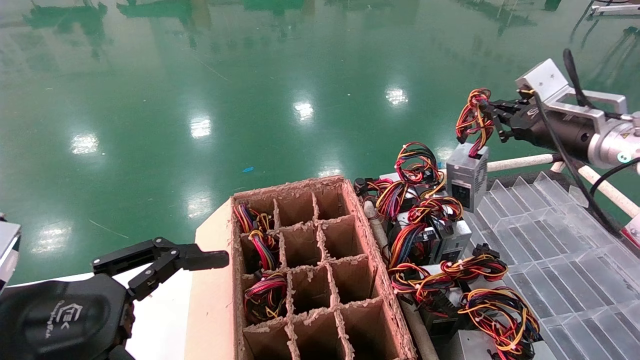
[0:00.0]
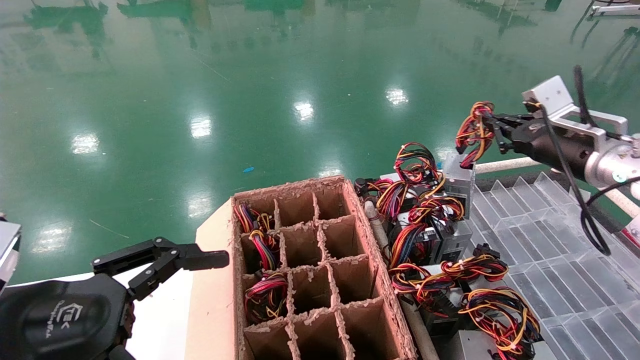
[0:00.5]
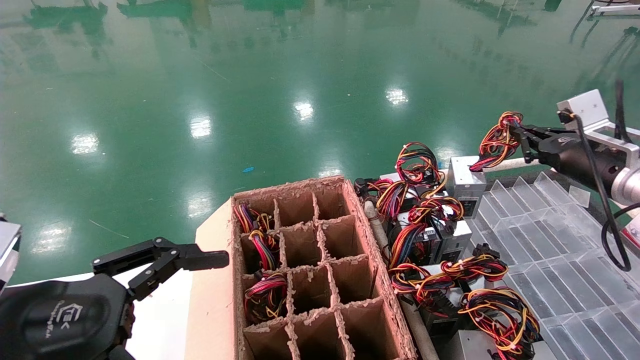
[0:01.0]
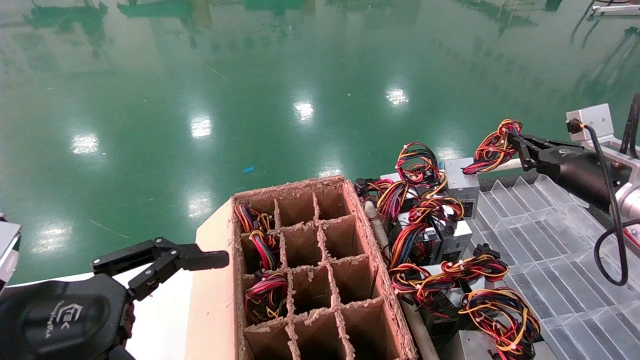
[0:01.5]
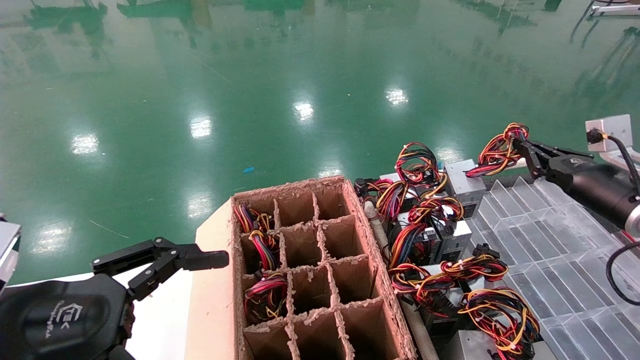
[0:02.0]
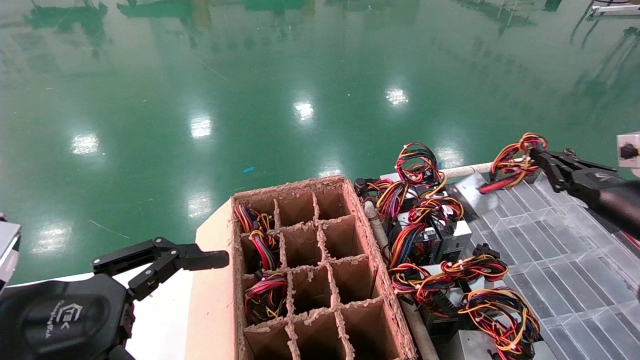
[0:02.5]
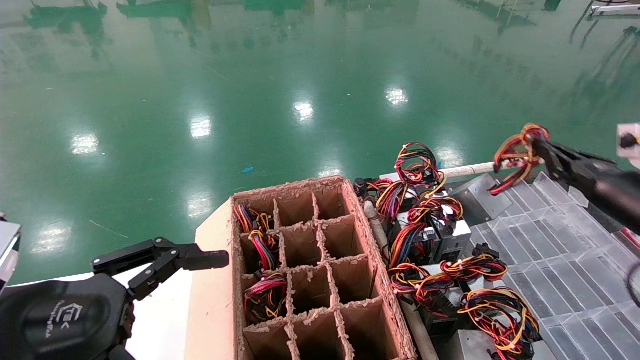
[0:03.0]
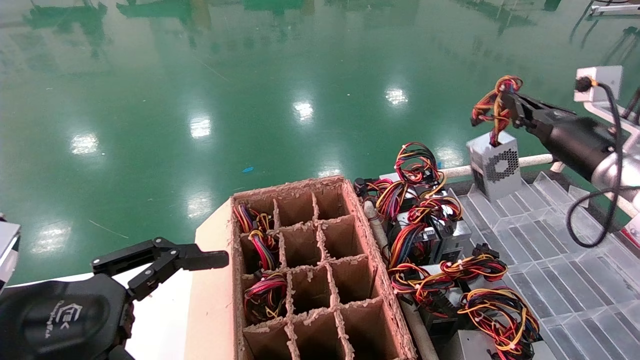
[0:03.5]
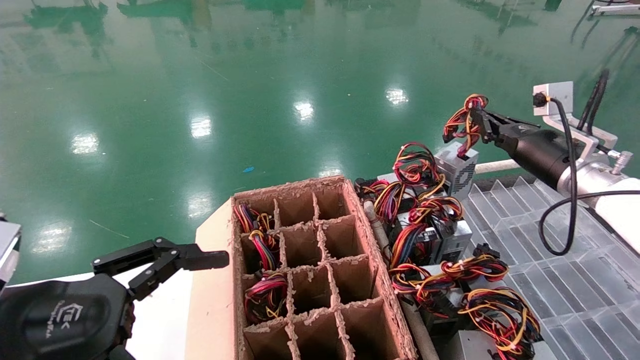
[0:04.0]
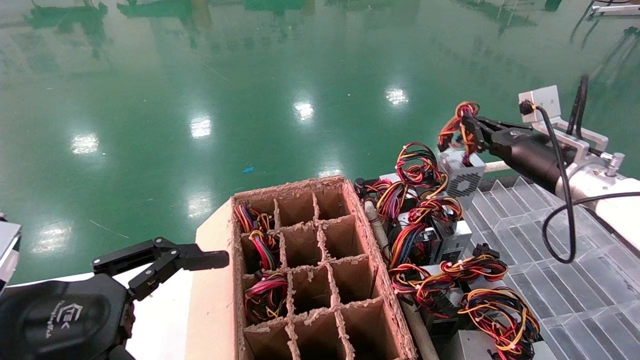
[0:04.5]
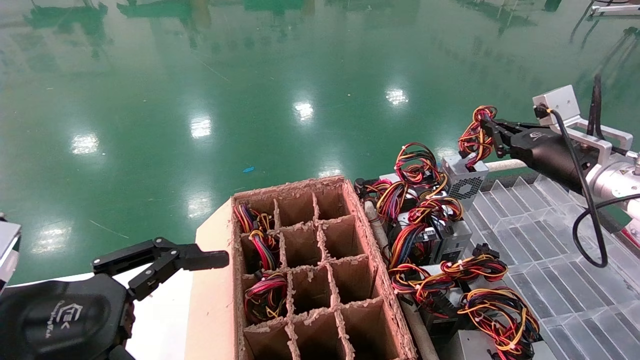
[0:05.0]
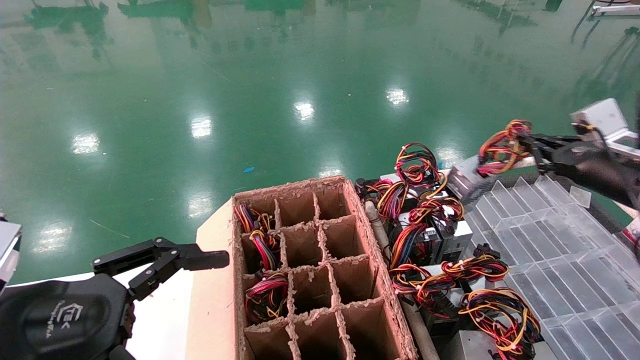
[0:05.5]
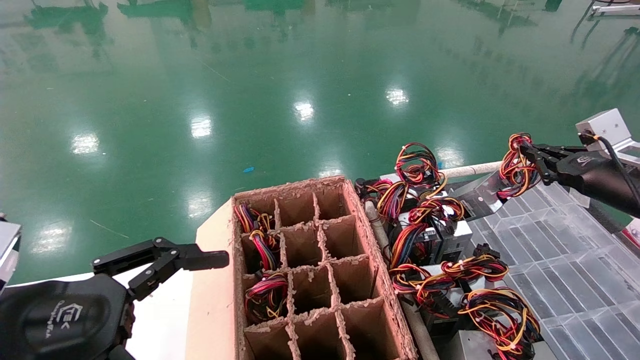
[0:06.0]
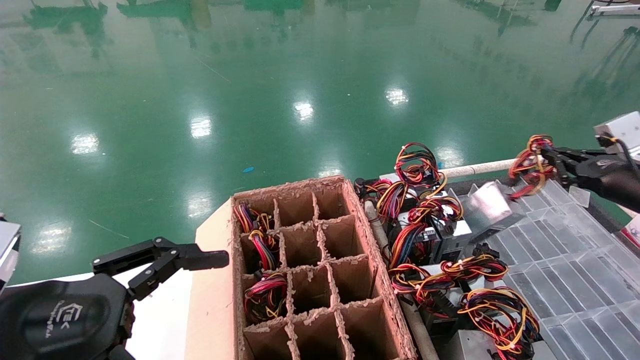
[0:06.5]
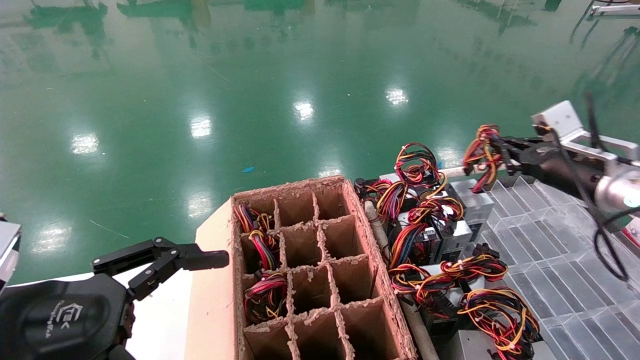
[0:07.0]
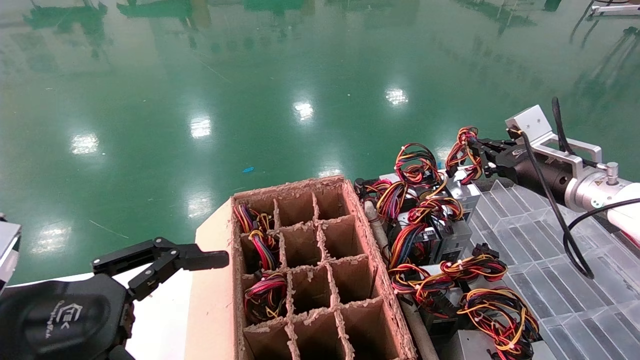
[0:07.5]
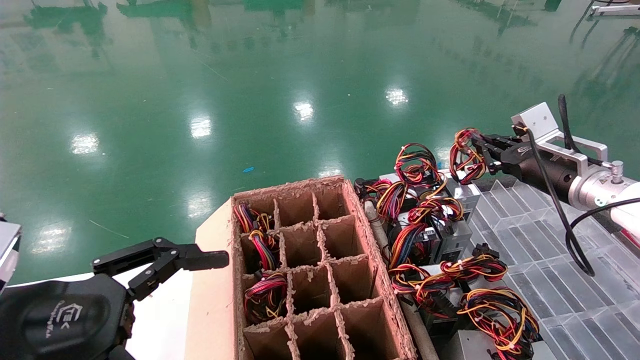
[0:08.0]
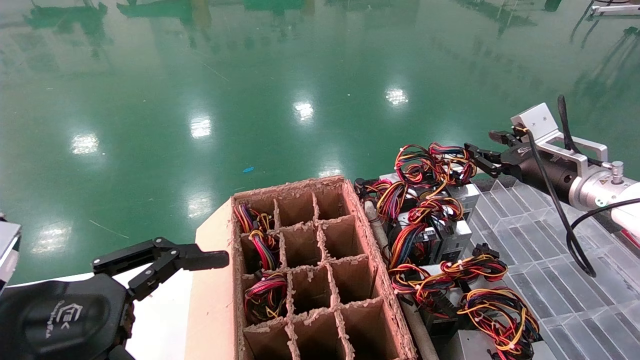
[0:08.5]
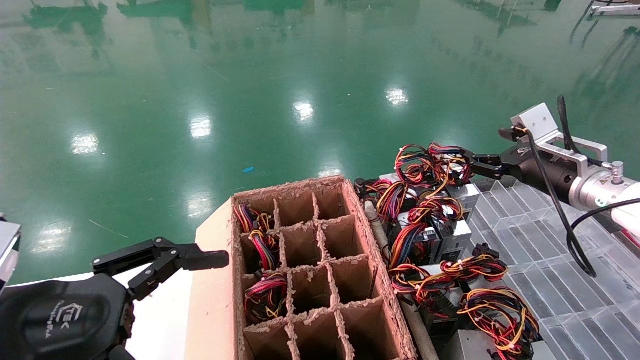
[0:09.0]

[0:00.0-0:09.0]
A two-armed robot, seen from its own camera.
Step, 0:00.0 to 0:08.0: Place the power supply on the operating table.
0:00.0 to 0:02.0: The right gripper moves downward and to the right, roughly 10 cm.
0:02.0 to 0:04.5: The right gripper shifts approximately 5 cm to the left.
0:07.0 to 0:09.0: The right gripper opens up.

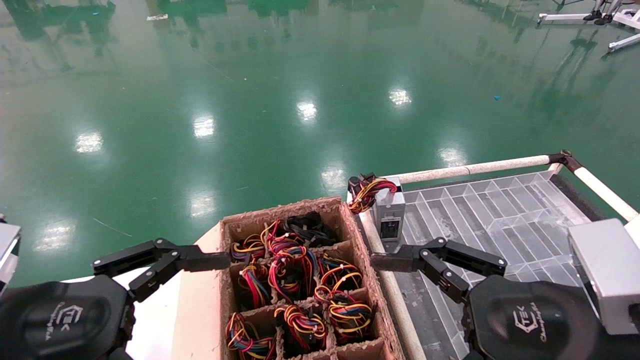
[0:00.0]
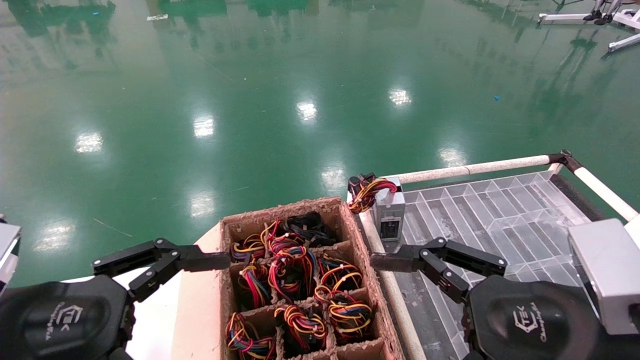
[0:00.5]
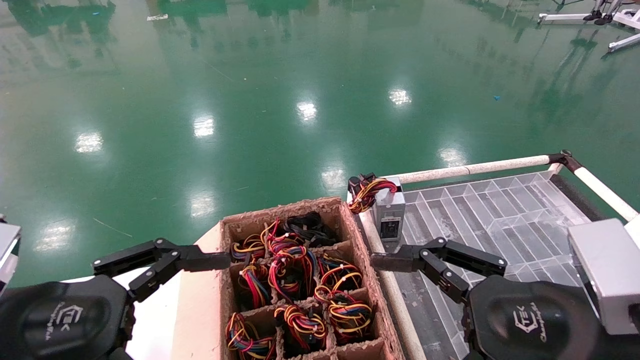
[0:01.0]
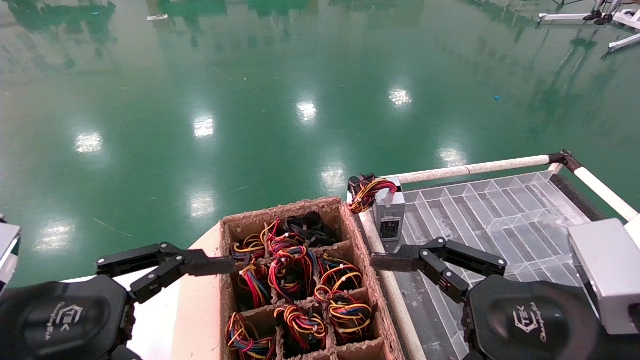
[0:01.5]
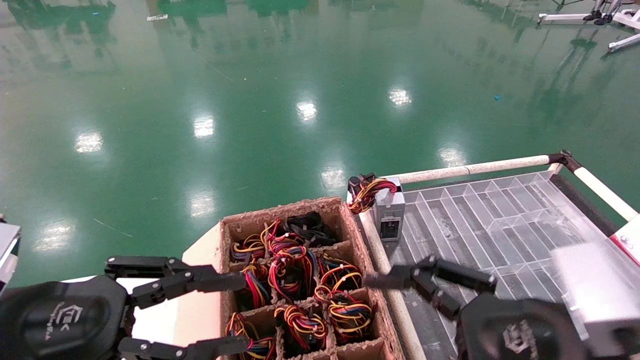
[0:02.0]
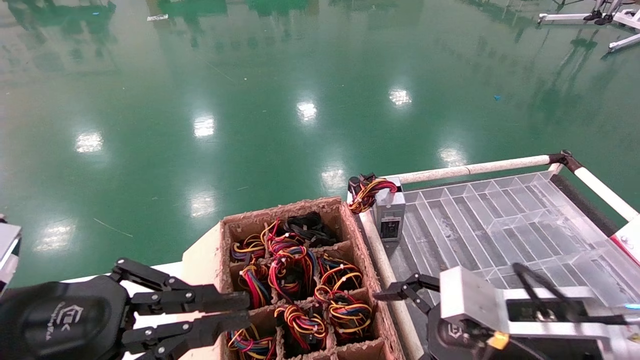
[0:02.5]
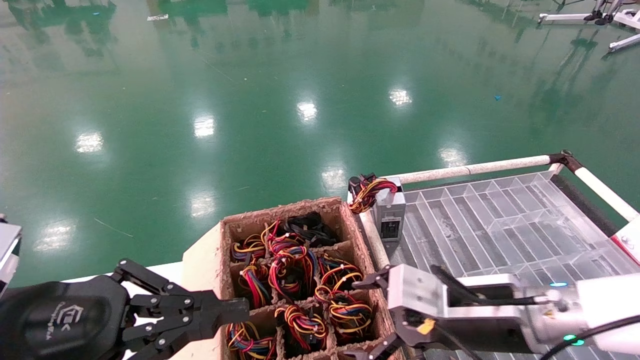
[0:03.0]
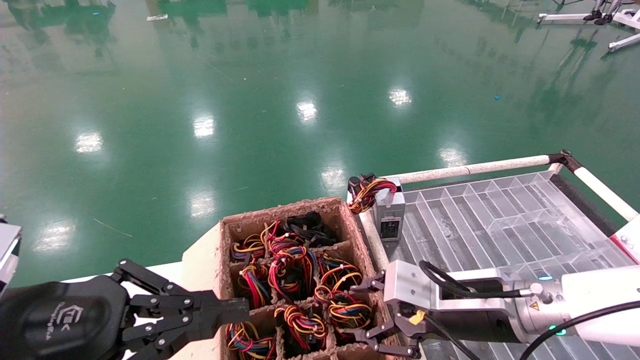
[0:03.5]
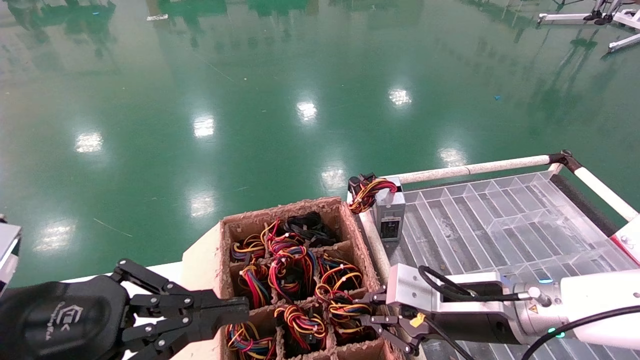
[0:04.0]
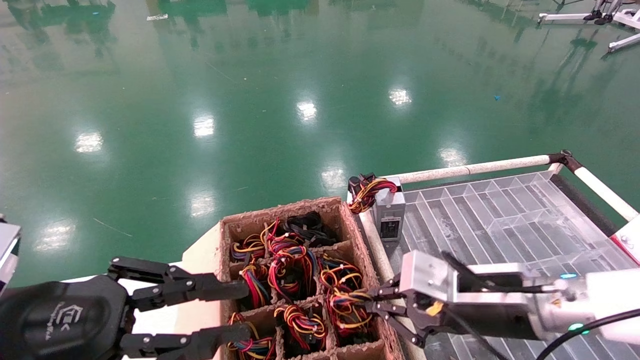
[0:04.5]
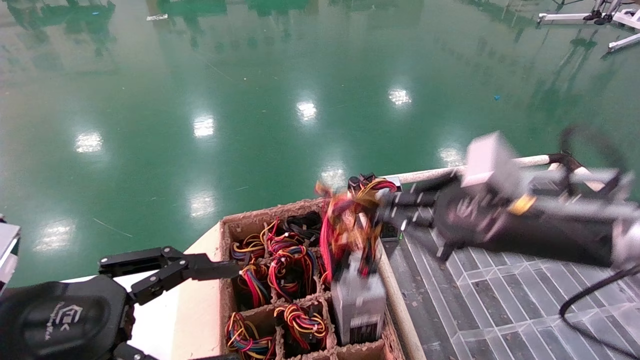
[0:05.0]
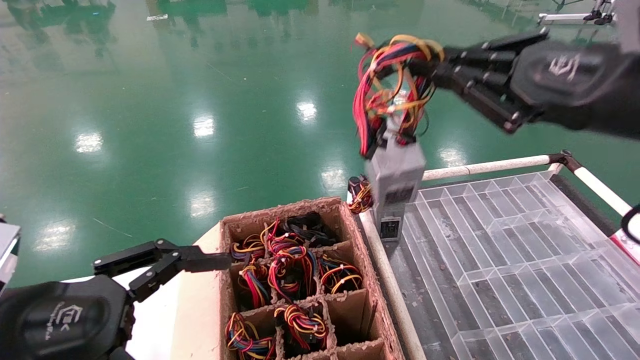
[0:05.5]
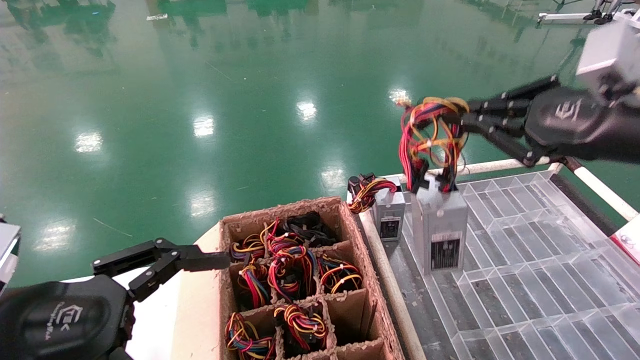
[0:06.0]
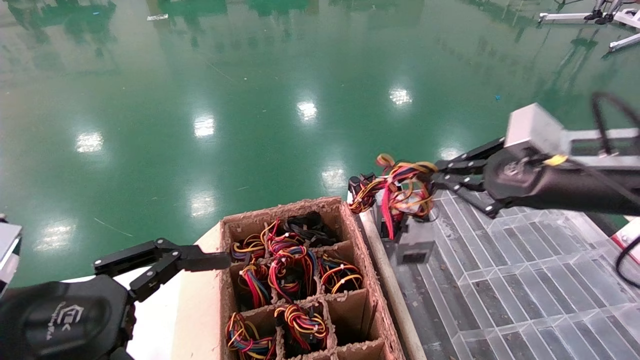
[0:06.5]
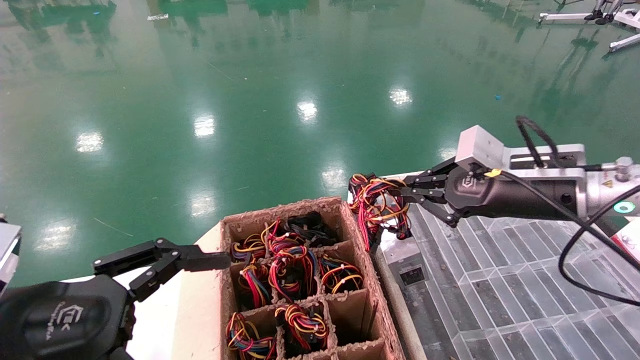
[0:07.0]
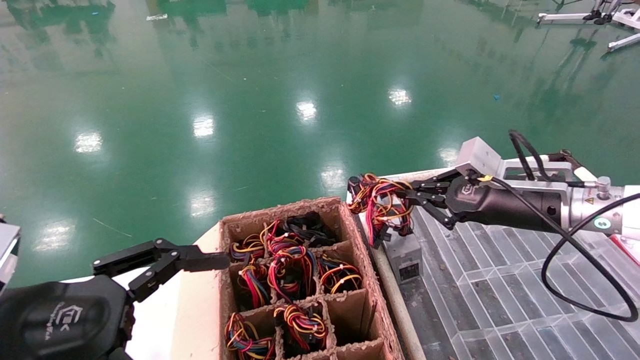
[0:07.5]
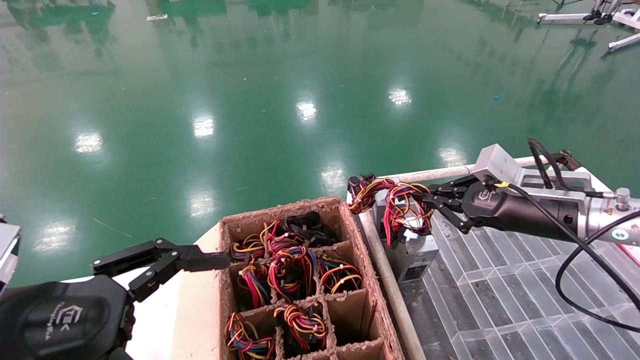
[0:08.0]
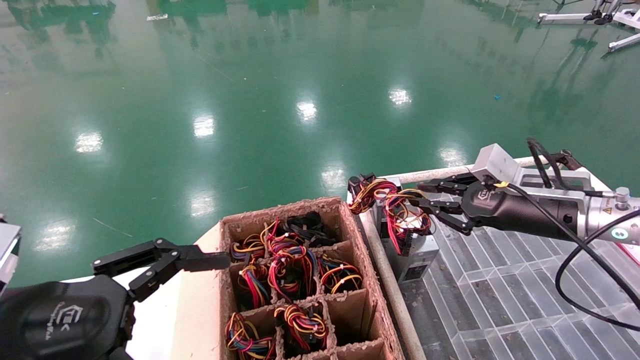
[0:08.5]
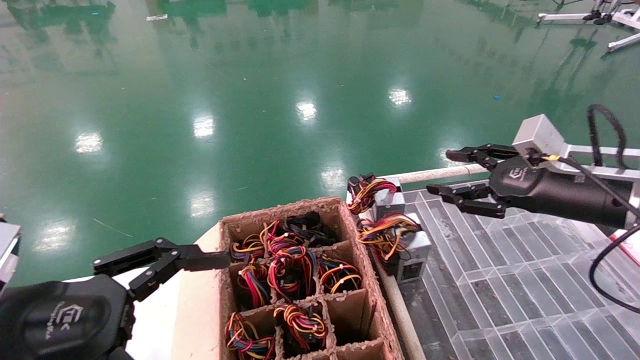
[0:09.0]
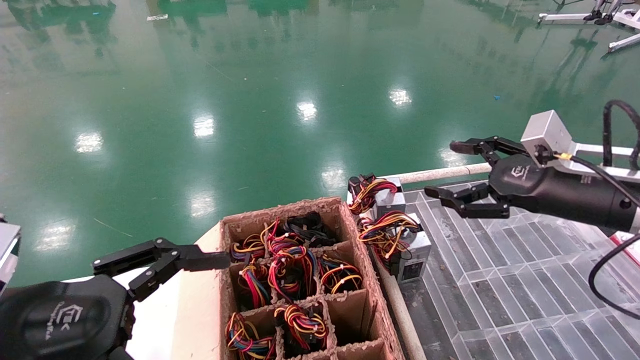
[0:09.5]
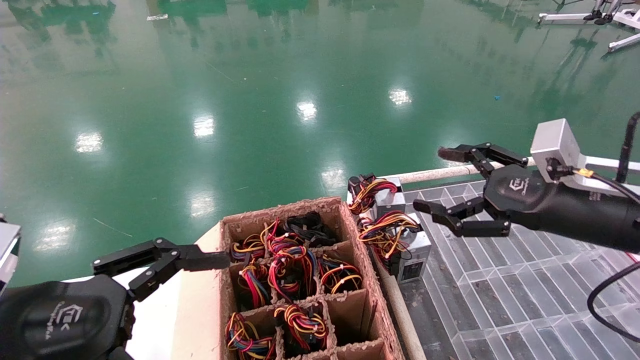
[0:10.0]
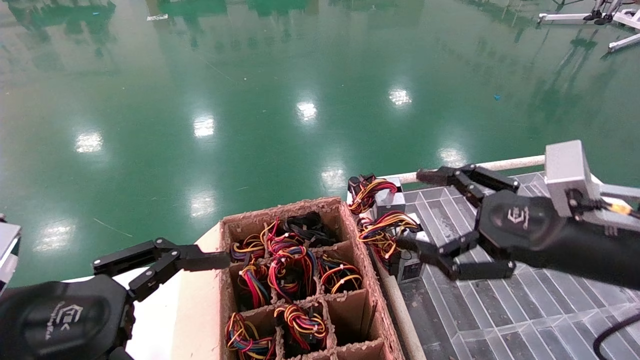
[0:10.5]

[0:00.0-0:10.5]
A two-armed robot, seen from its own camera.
Step, 0:03.0 to 0:04.0: Grab and lift the power supply from the large box.
Step, 0:04.5 to 0:08.0: Place the power supply on the operating table.
0:00.0 to 0:02.0: The left gripper closes up.
0:02.0 to 0:04.0: The left gripper closes up, while the right gripper travels forward by roughly 10 cm, and closes up.
0:04.0 to 0:06.5: The right gripper heads upward and to the right, covering approximately 20 cm, while the left gripper opens.
0:06.5 to 0:08.5: The right gripper goes roughly 10 cm forward and downward.
0:08.5 to 0:10.5: The right gripper travels backward by roughly 10 cm, and opens.
